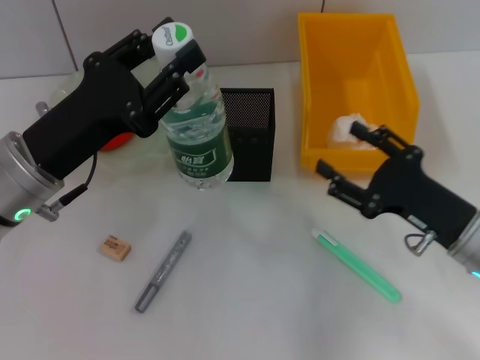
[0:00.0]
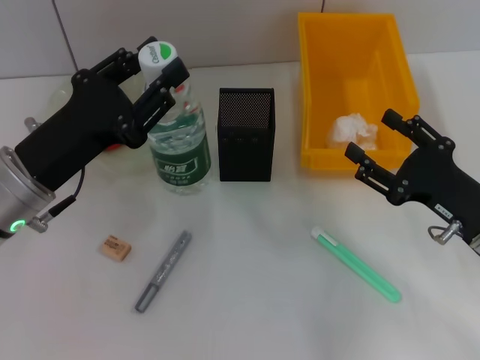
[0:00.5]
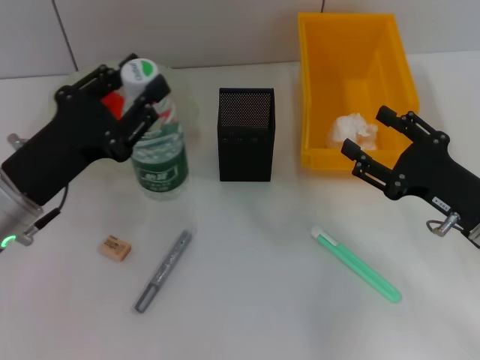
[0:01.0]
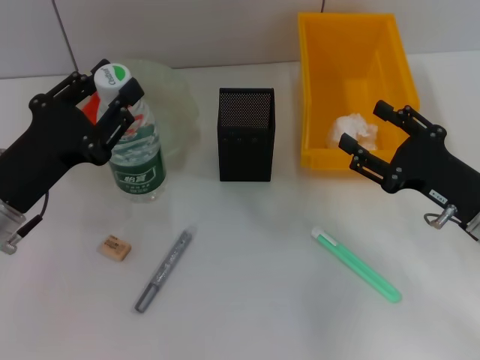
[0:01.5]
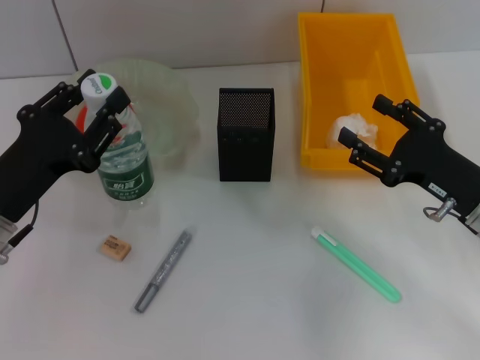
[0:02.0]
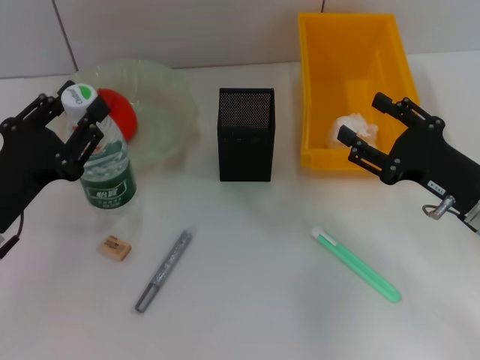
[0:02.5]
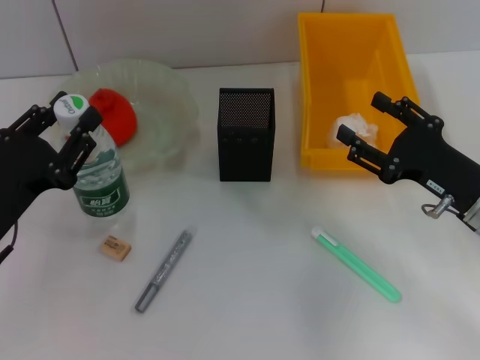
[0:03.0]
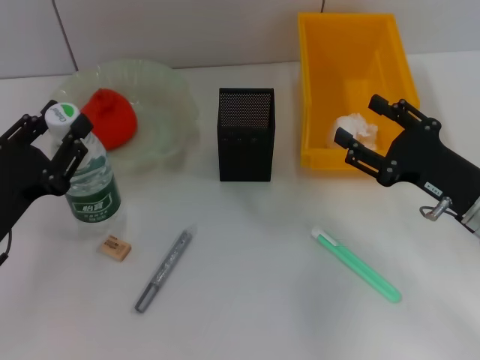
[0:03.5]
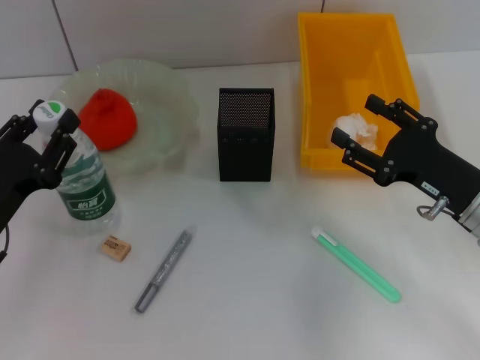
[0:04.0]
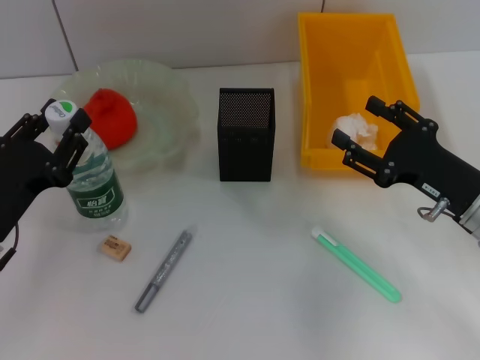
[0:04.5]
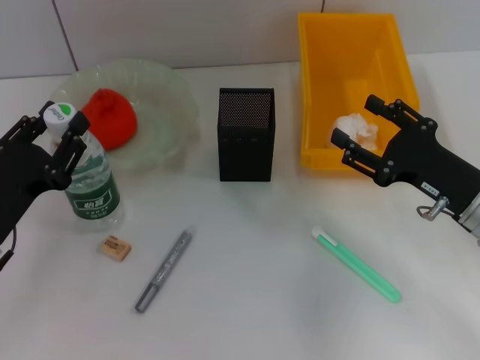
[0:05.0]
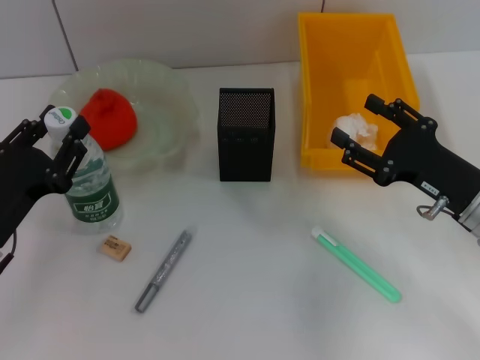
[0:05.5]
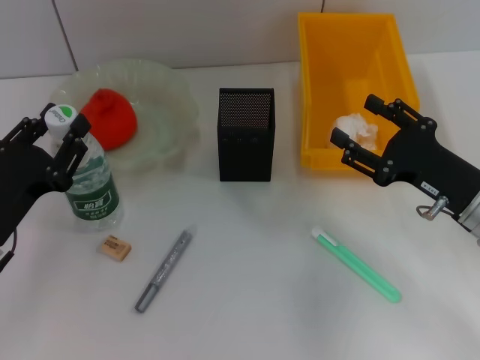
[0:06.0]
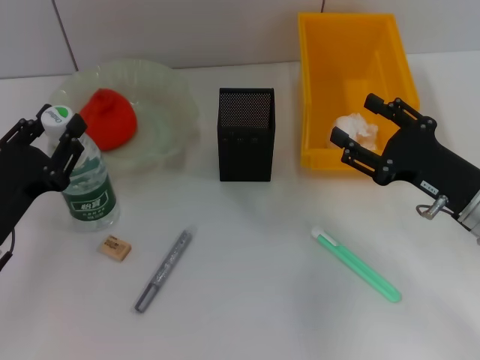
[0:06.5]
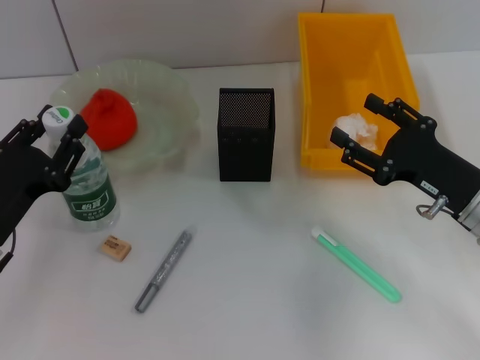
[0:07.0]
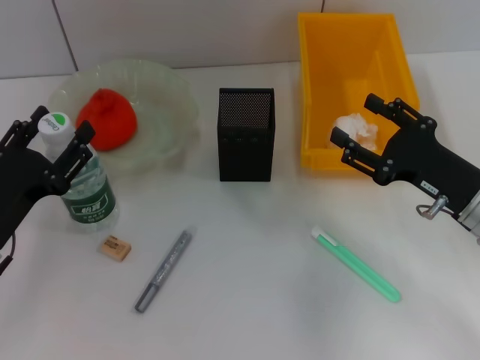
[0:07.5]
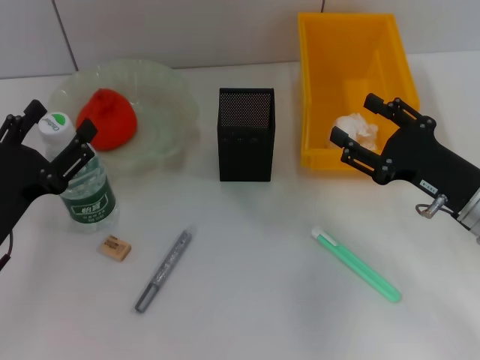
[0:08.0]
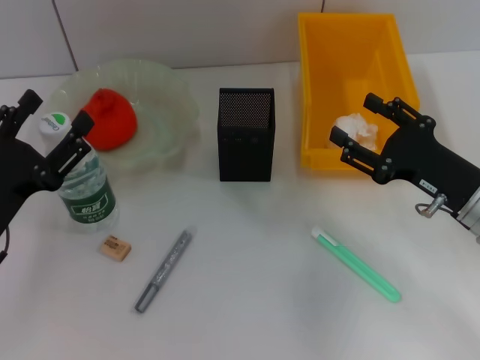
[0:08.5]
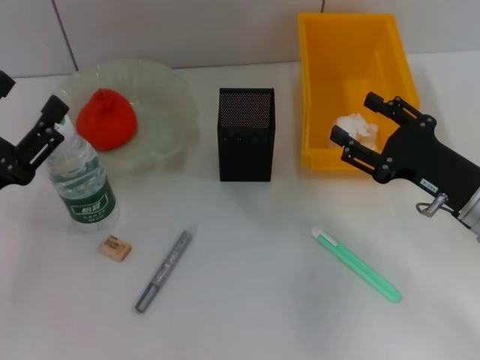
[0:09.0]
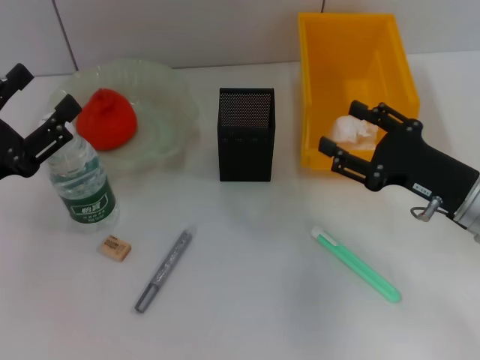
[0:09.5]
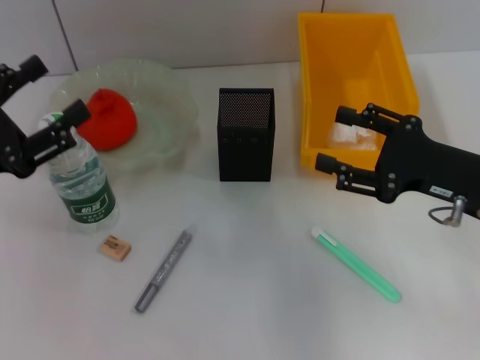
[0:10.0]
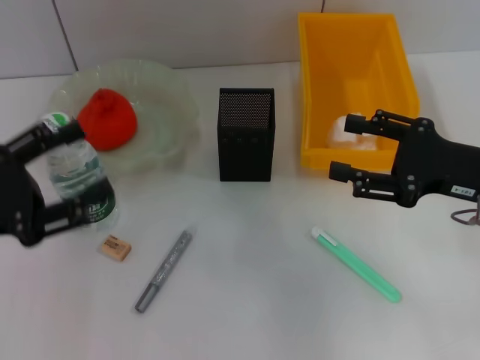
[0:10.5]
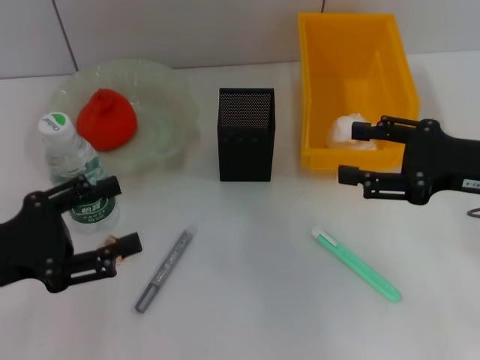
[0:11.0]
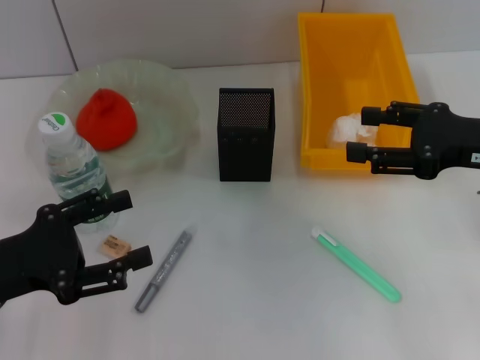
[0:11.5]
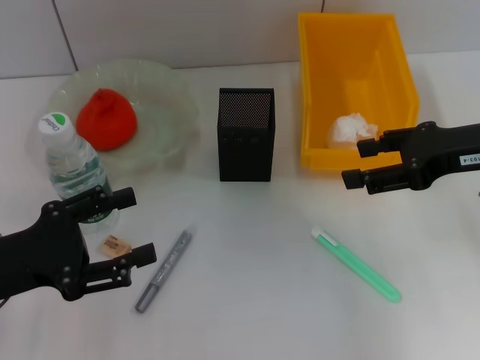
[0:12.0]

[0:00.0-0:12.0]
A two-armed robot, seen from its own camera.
Step, 0:00.0 to 0:08.0: Place the water bottle on the table with the left hand.
0:00.0 to 0:02.0: The left gripper moves roughly 5 cm.
0:02.0 to 0:04.0: There are only small adjustments of the grippers.
0:04.0 to 0:06.0: The two grippers keep their place.
0:06.0 to 0:08.0: The left gripper opens.
0:08.0 to 0:10.0: The left gripper heads upward, covering some 5 cm.
0:10.0 to 0:12.0: The right gripper is displaced upward by some 5 cm.

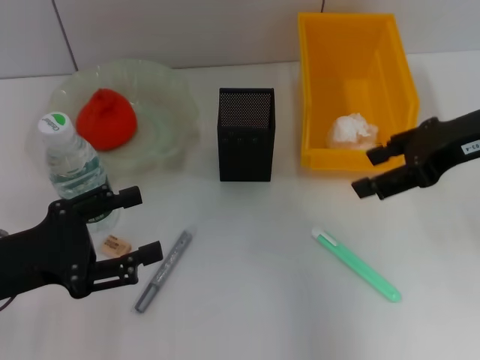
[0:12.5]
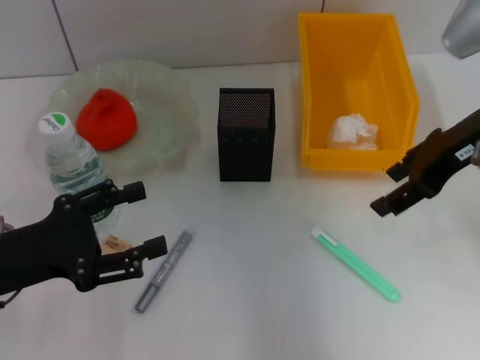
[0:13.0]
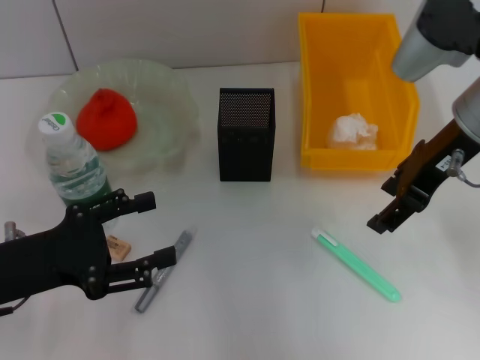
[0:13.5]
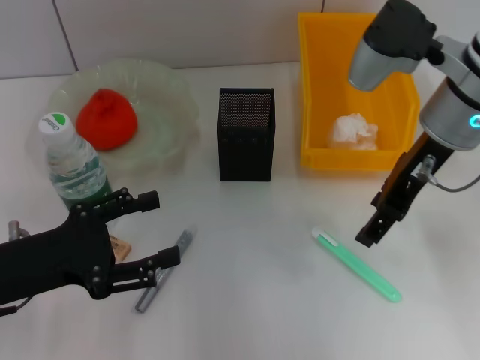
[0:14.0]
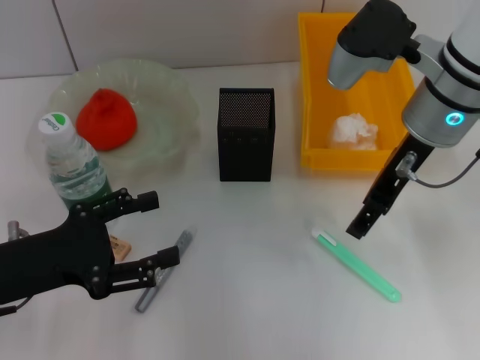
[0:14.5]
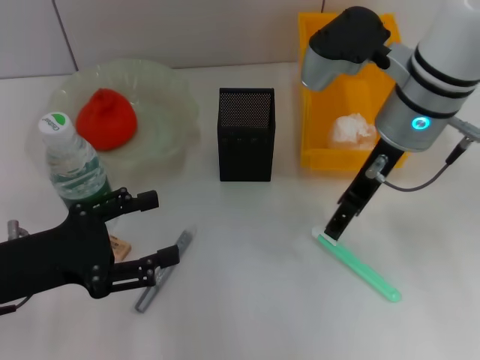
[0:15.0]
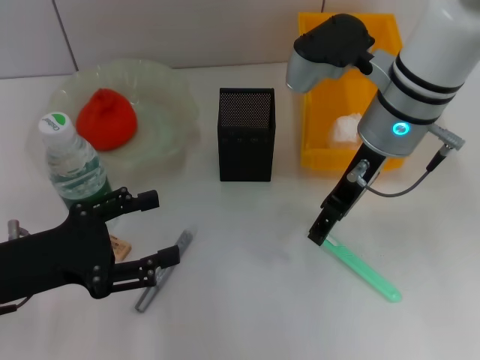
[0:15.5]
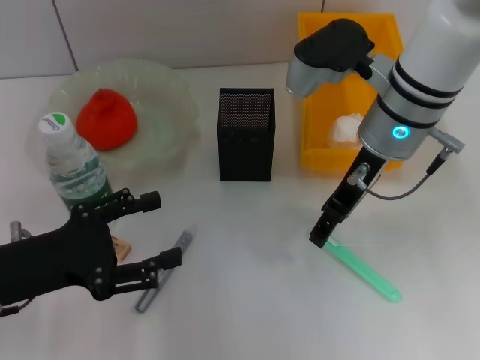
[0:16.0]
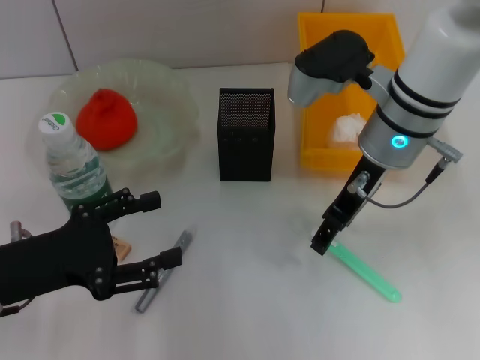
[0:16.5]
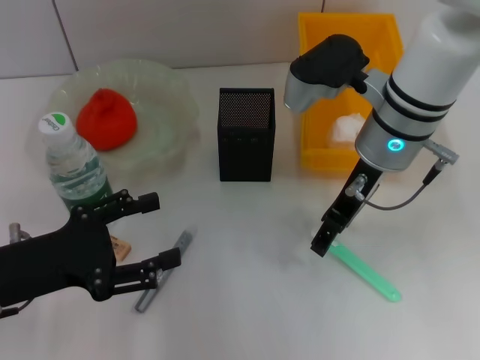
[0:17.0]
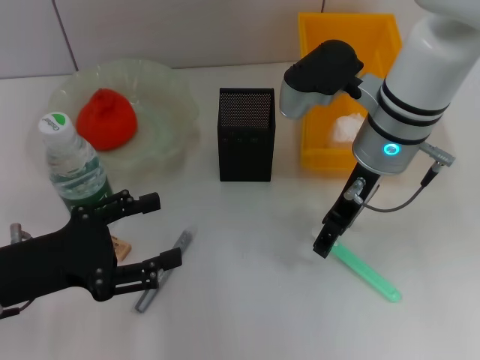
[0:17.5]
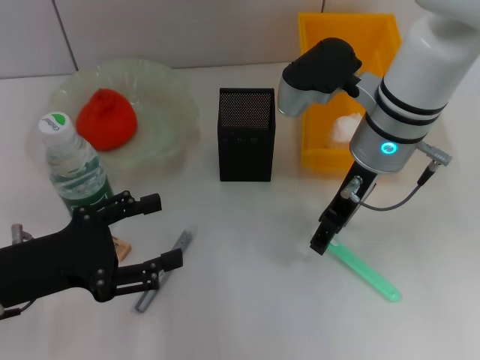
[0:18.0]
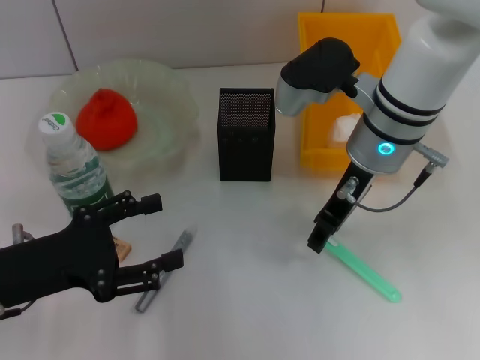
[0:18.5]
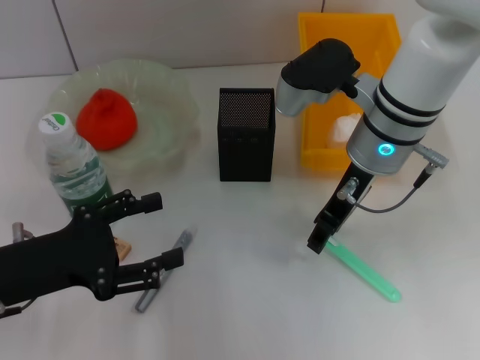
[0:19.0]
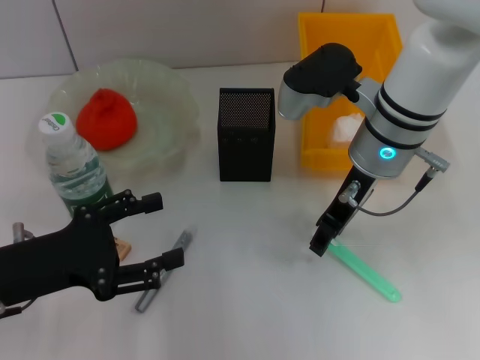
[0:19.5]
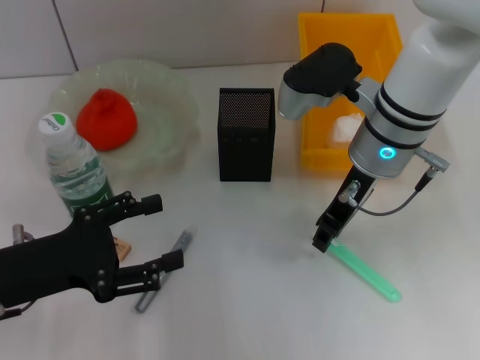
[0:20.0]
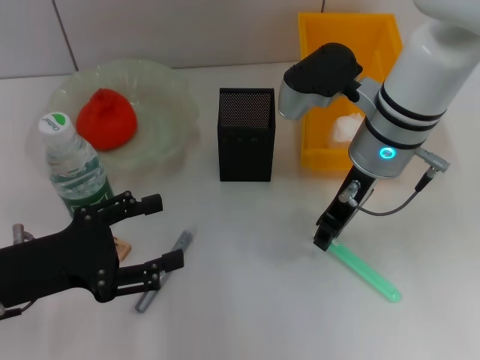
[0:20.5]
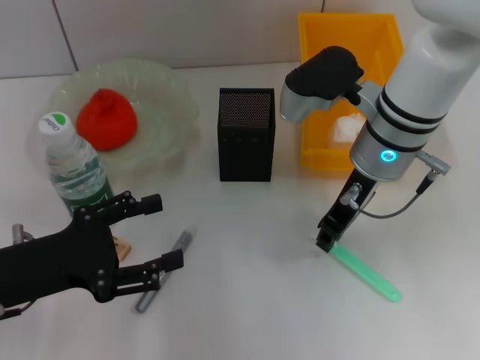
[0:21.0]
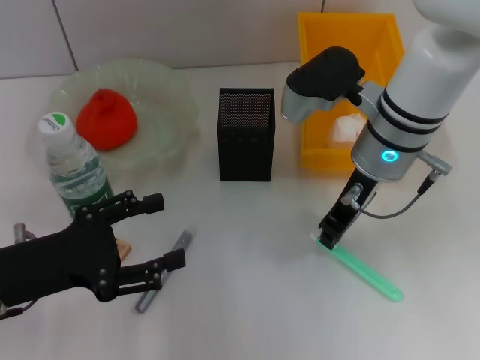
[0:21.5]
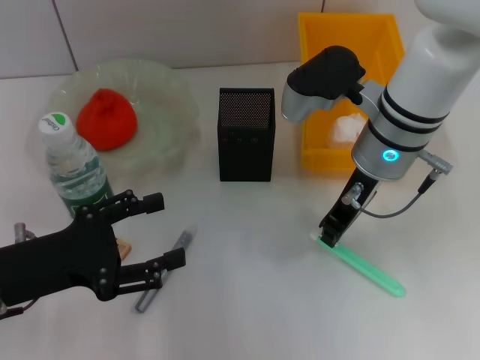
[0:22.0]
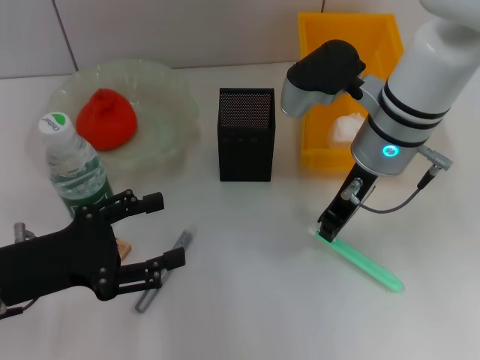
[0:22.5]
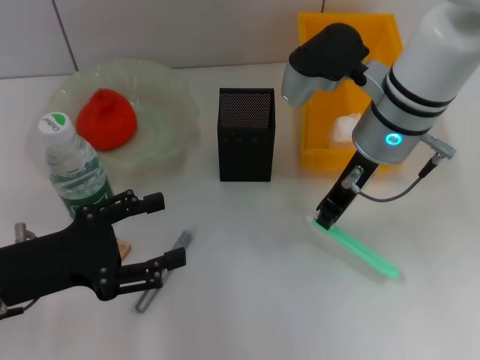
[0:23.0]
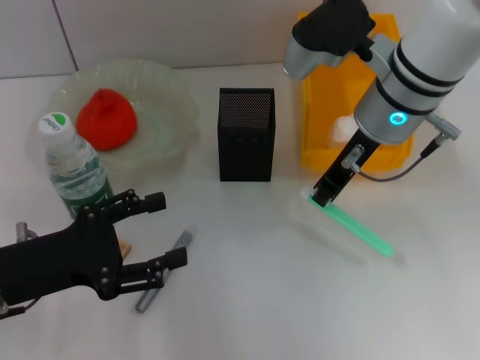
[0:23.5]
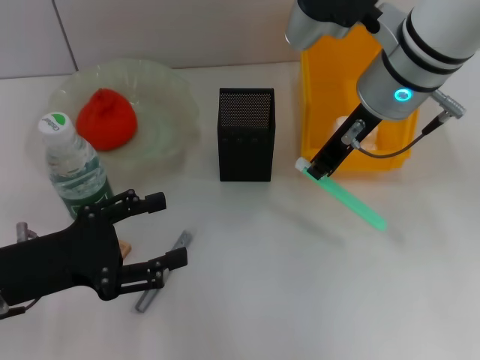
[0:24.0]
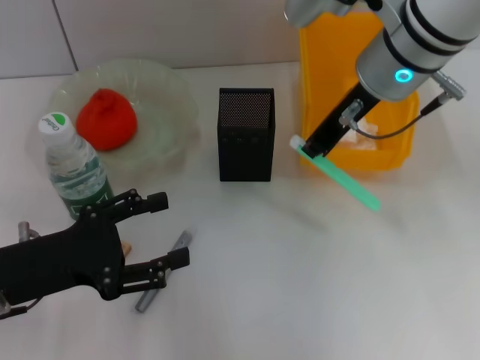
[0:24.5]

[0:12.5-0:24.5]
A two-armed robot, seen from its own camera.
0:12.5 to 0:14.5: The right gripper shifts roughly 10 cm to the left.
0:14.5 to 0:16.5: The grippers stay close to where they were, moving slightly.
0:16.5 to 0:20.5: Neither gripper changes place.
0:20.5 to 0:22.5: The right gripper closes its fingers.
0:22.5 to 0:24.5: The right gripper goes some 10 cm upward.

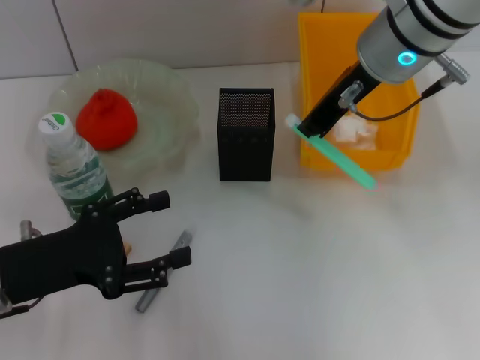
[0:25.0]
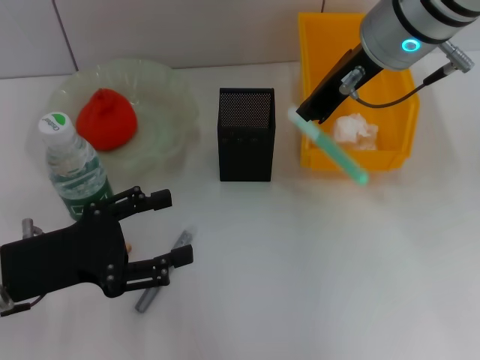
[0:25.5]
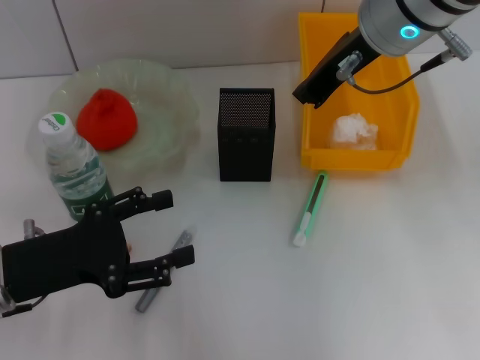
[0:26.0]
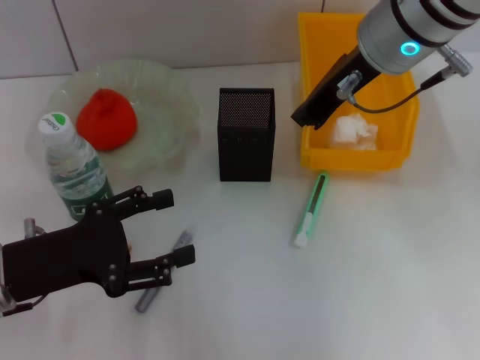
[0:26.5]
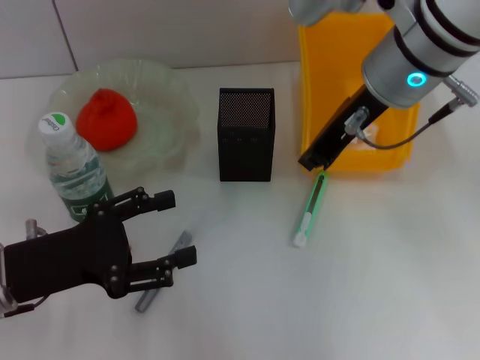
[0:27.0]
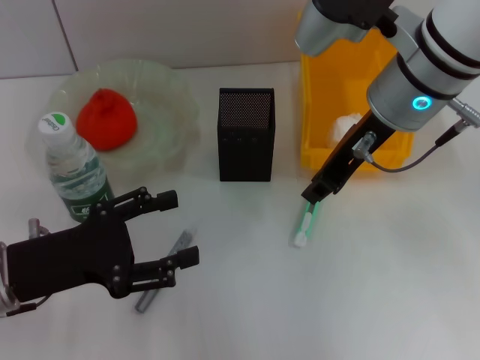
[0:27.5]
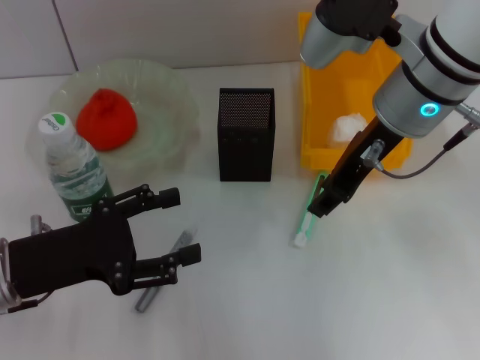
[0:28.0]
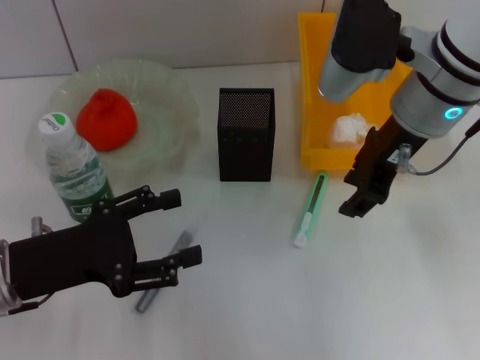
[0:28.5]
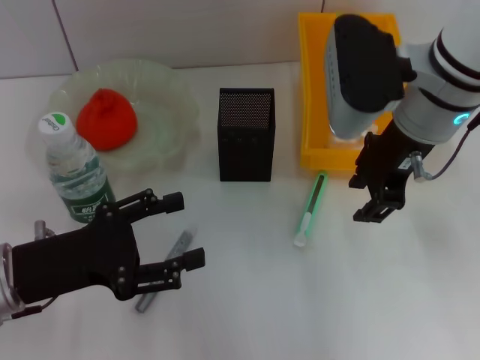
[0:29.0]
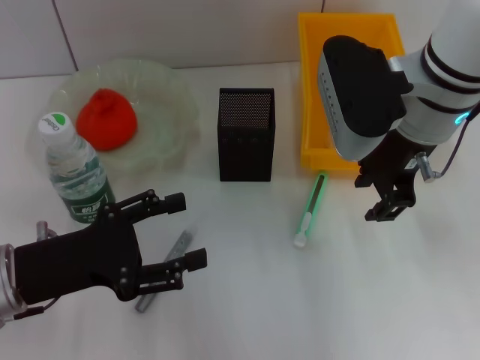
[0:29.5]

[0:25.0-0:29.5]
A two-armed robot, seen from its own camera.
0:25.0 to 0:27.0: The grippers make only small movements.
0:27.0 to 0:29.5: The right gripper opens its fingers.
